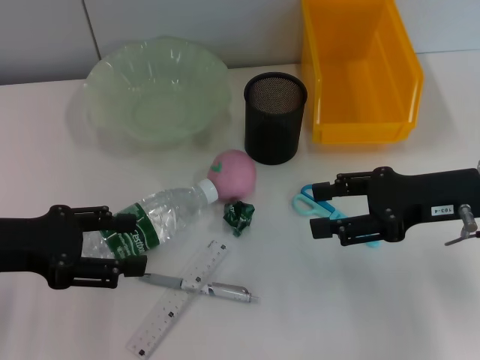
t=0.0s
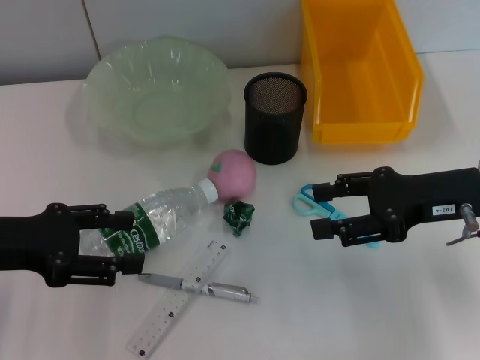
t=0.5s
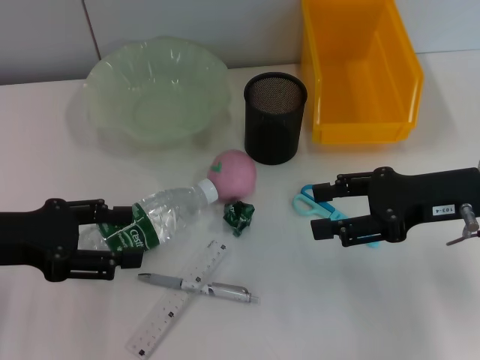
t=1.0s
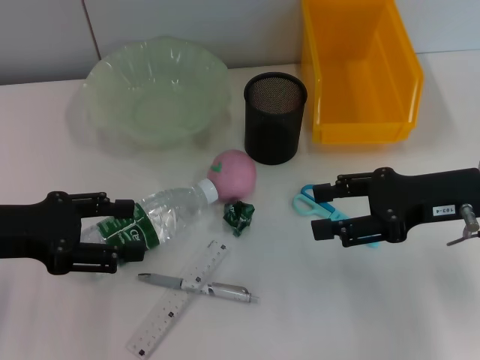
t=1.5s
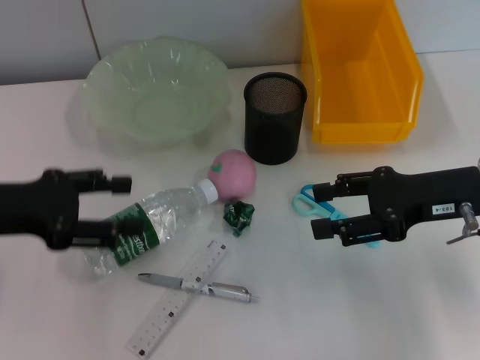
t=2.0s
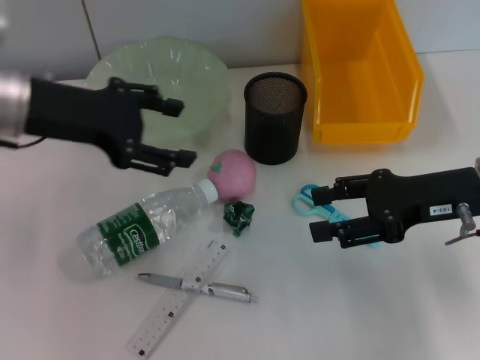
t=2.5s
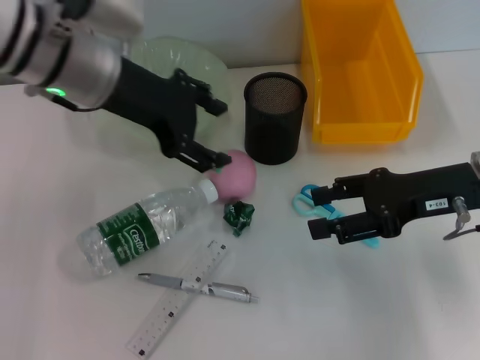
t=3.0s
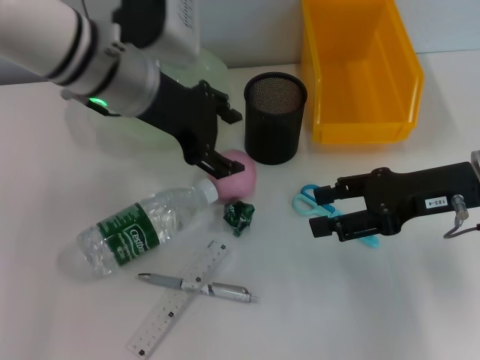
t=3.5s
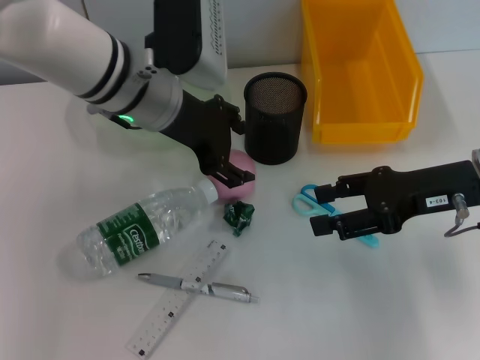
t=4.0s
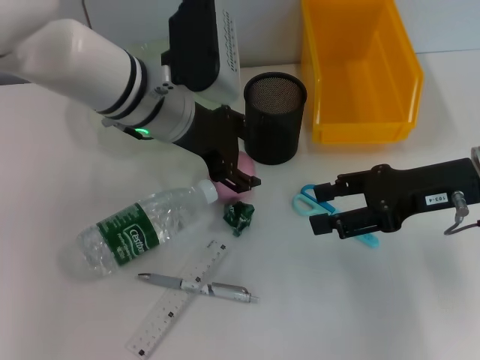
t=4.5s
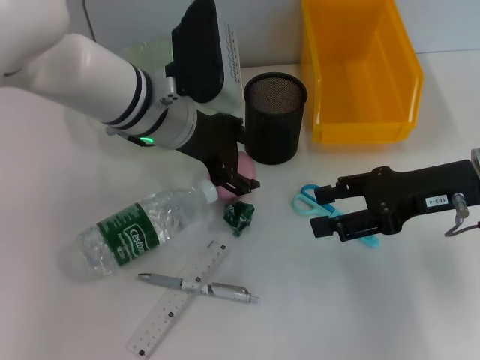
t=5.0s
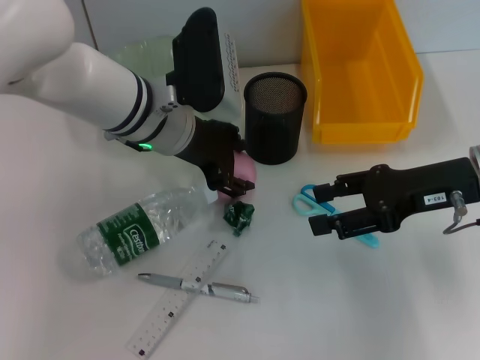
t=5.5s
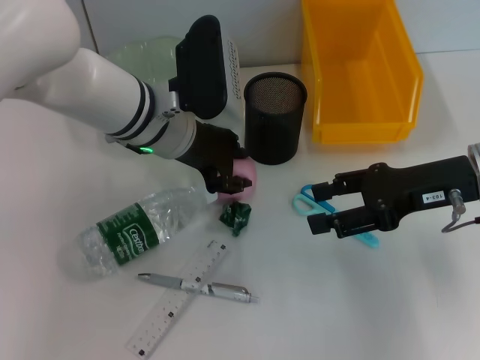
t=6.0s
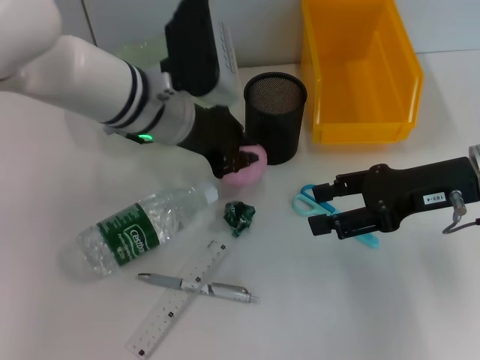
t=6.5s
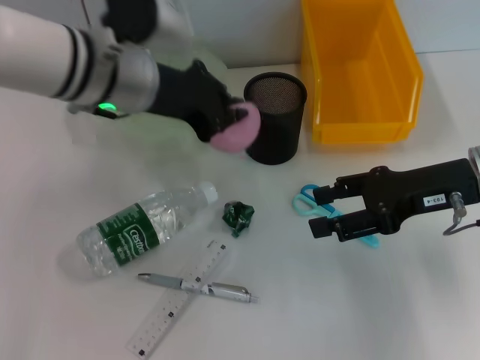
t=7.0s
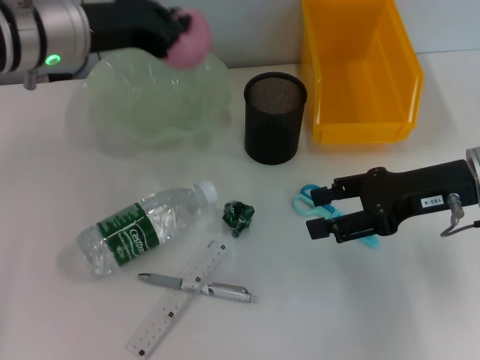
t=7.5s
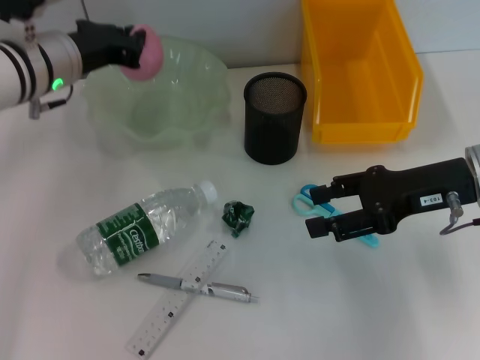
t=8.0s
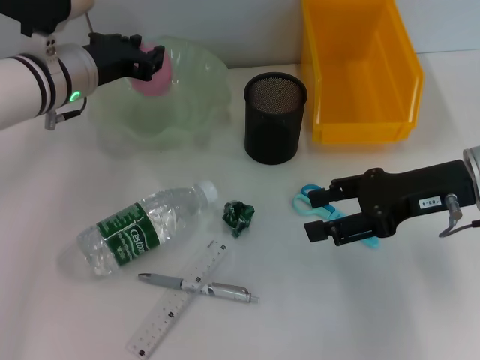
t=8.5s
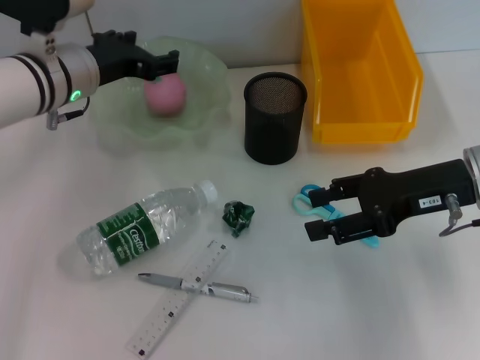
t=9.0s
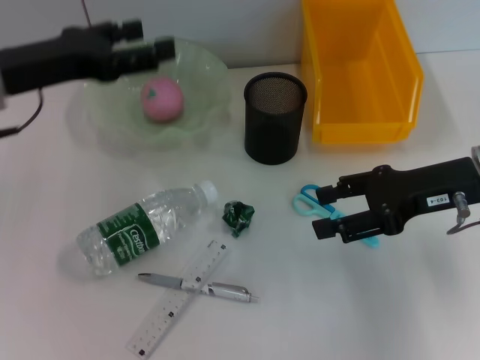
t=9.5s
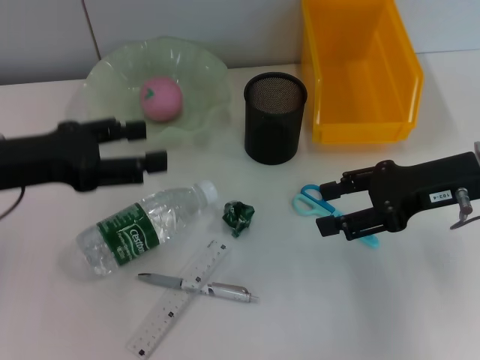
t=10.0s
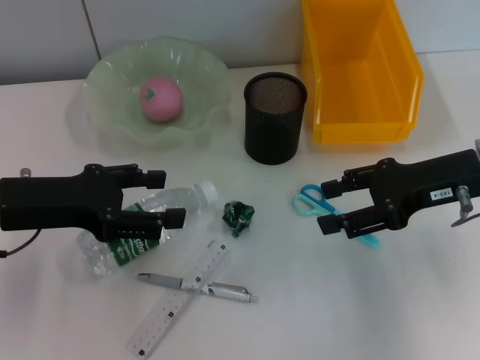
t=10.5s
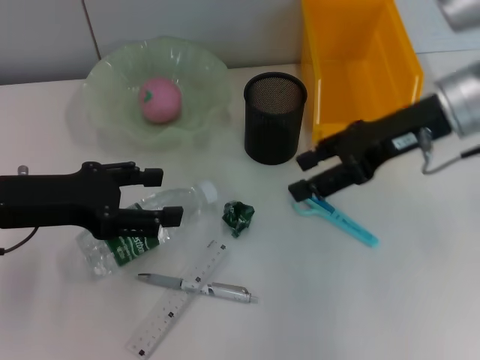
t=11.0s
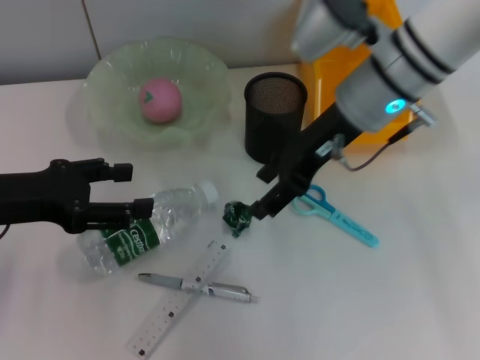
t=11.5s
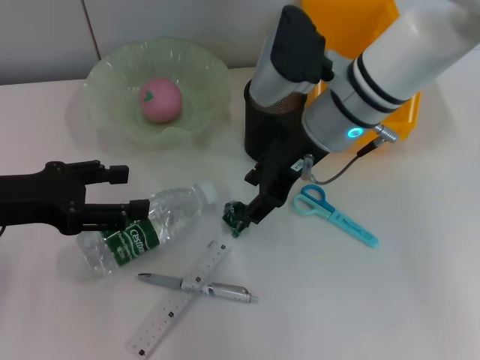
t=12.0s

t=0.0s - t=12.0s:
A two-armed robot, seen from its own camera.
Step, t=0.0s - t=6.0s: Grab the peach with the left hand.
Step, t=6.5s - t=9.5s: Place the peach into the fruit bowl with the left hand.
t=0.0s - t=2.0s: The grippers move only a little.
t=2.0s - t=4.0s: The left gripper moves to the right and forward, approximately 20 cm.
t=4.0s - t=6.0s: There are only small adjustments of the grippers.
t=6.0s - t=8.0s: The left gripper is displaced to the left by approximately 10 cm, and closes.
t=8.0s - t=10.0s: The left gripper heads backward and to the left, covering approximately 15 cm, and opens.
t=10.0s - t=12.0s: The right gripper travels to the left and forward by some 15 cm.

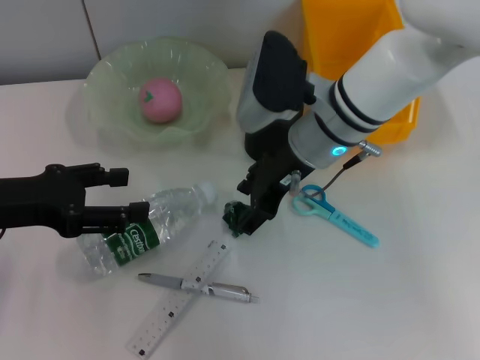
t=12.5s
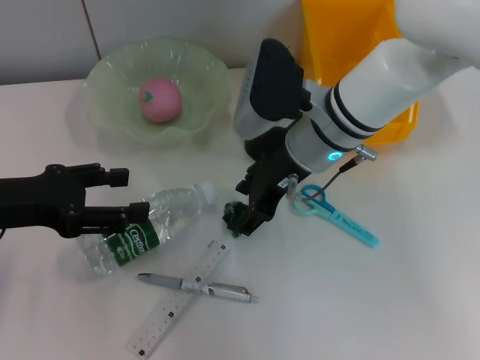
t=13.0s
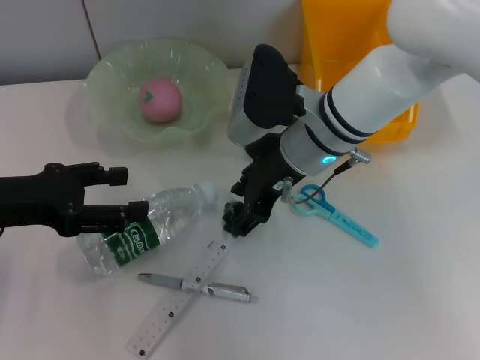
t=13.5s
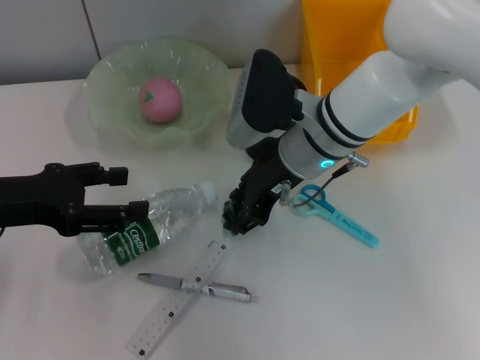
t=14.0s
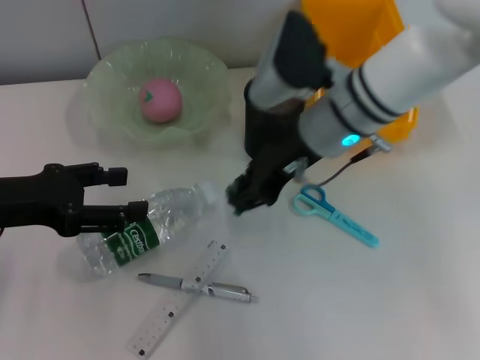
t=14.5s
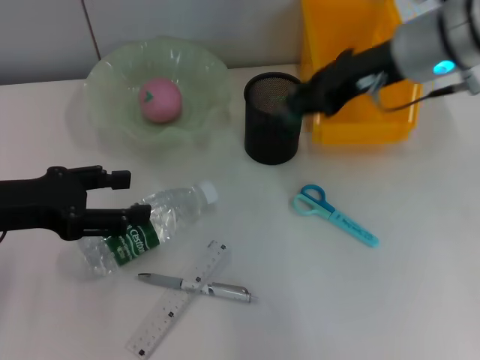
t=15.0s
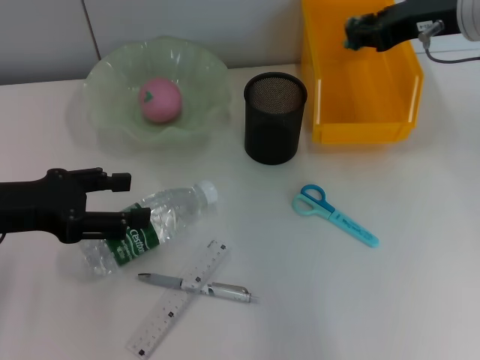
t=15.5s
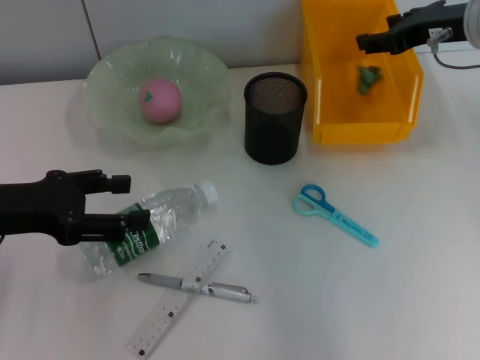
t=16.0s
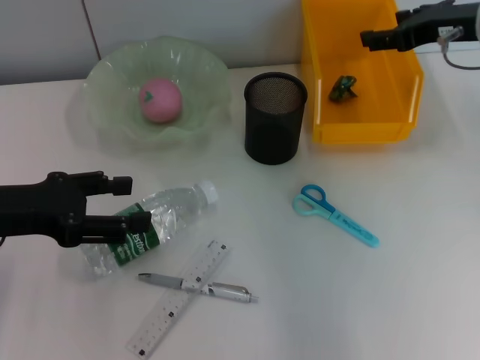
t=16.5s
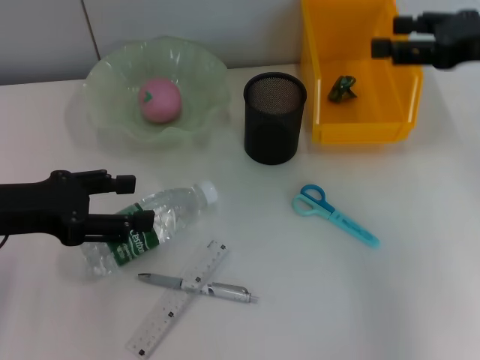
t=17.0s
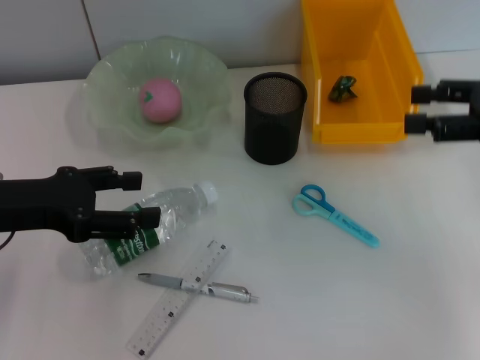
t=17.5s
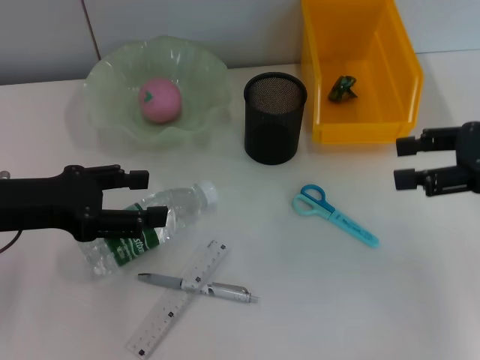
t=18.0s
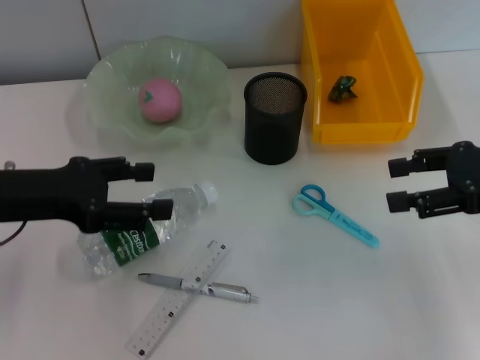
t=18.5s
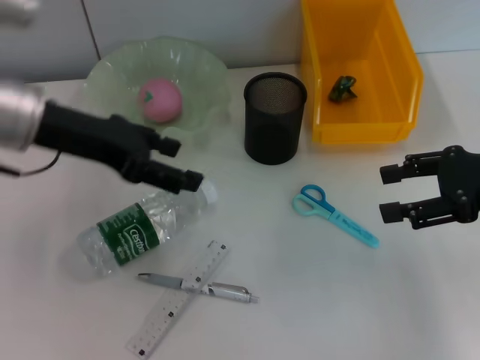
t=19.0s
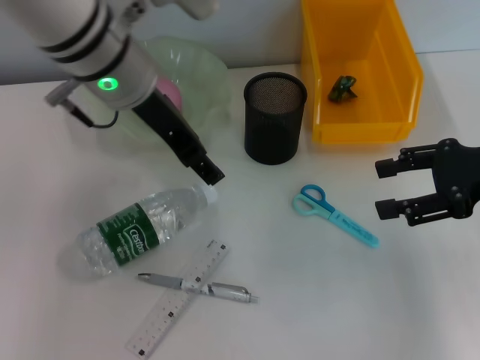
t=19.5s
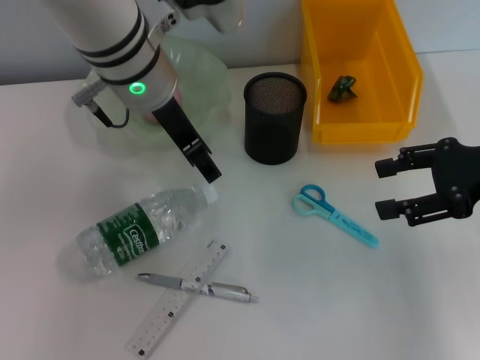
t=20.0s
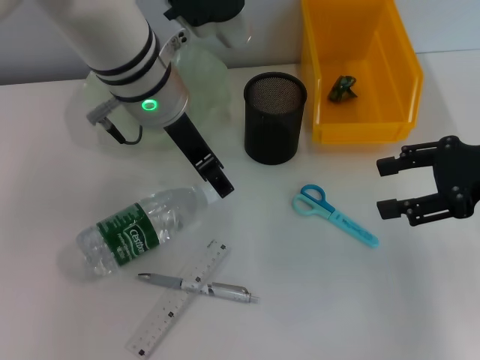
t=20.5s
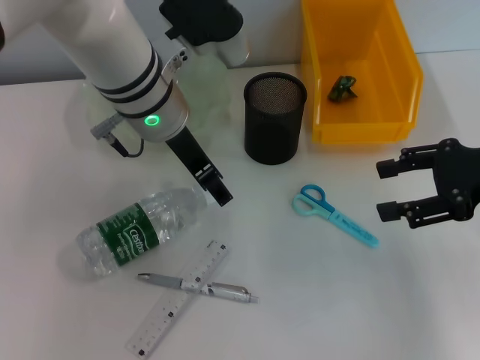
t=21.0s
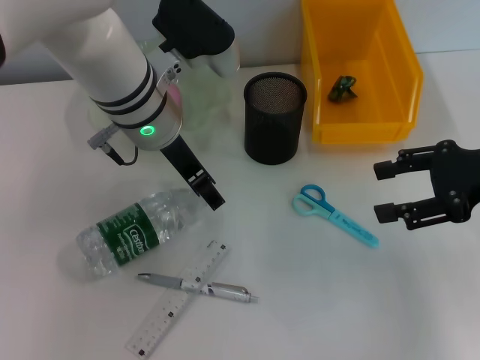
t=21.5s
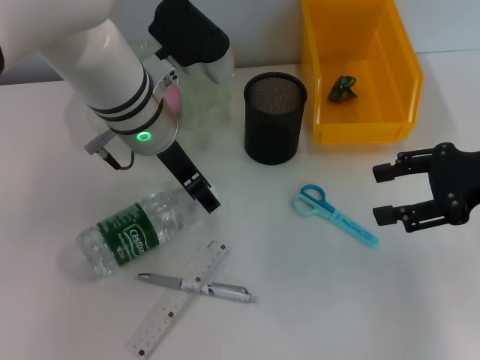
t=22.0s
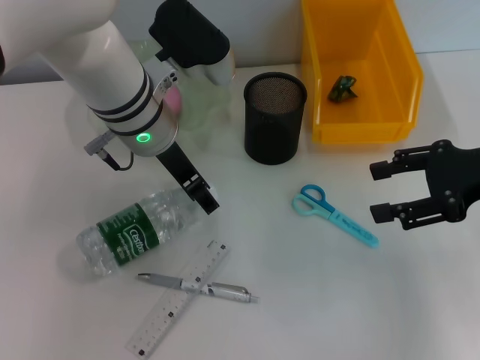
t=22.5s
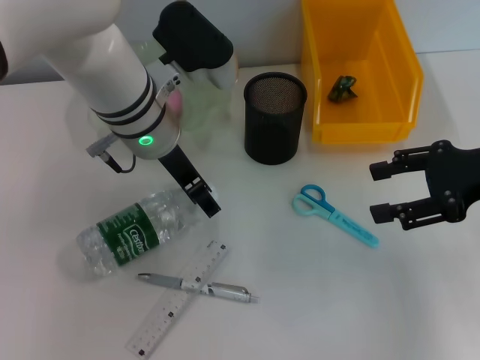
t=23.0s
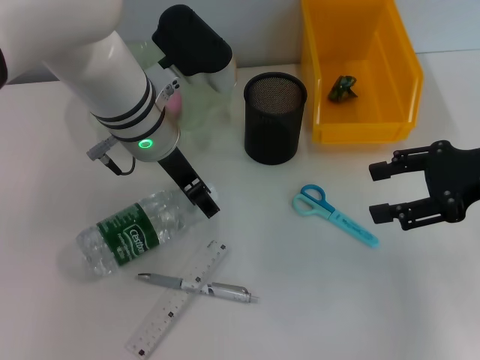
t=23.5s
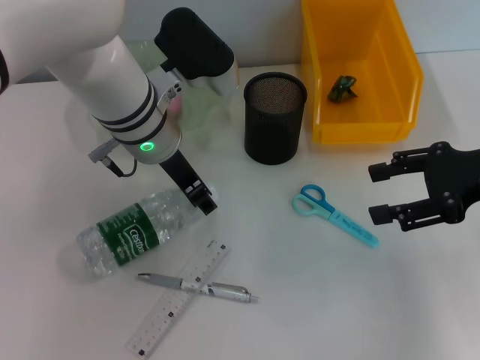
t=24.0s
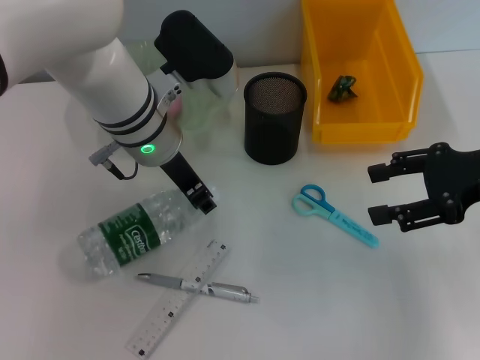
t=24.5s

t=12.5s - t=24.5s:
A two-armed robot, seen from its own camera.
Step, t=14.5s - t=16.0s: Place the plastic into the trash can with the right hand.
Step, t=17.0s - t=24.0s: Grab the water bottle with the left hand.
t=12.5s - t=14.5s: The grippers make only small movements.
t=14.5s - t=16.5s: The right gripper goes about 15 cm to the right, and opens up.
t=16.5s - t=18.5s: The right gripper shifts roughly 10 cm backward and to the right.
t=18.5s - t=20.5s: The left gripper heads to the right and forward, covering roughly 20 cm.
t=20.5s - t=22.5s: There are only small adjustments of the grippers.
t=22.5s - t=24.5s: The left gripper closes up.

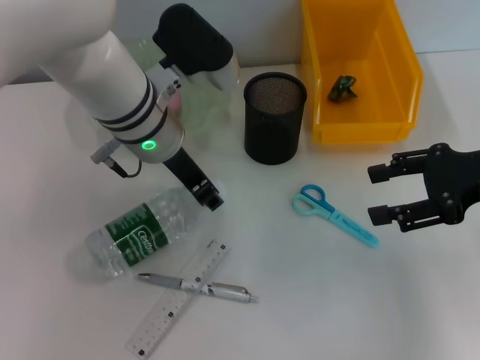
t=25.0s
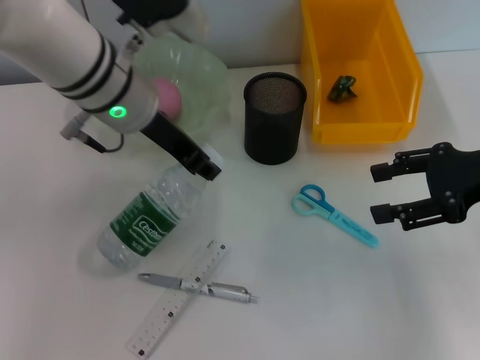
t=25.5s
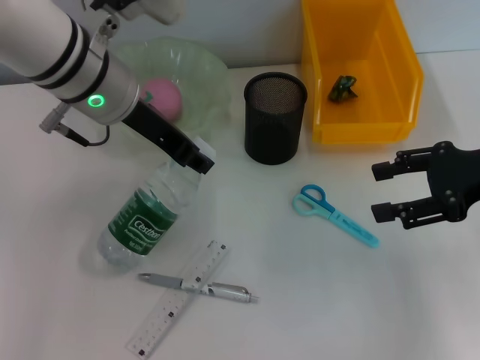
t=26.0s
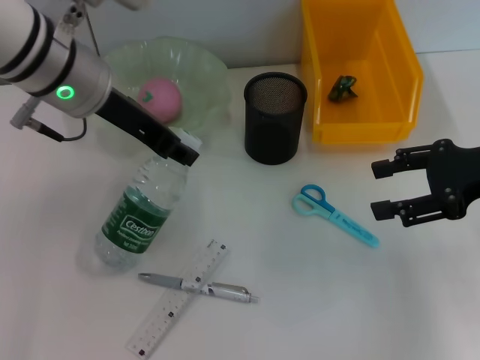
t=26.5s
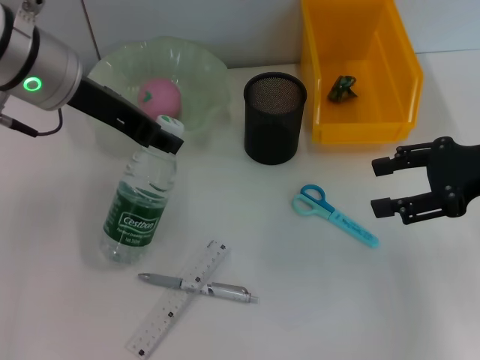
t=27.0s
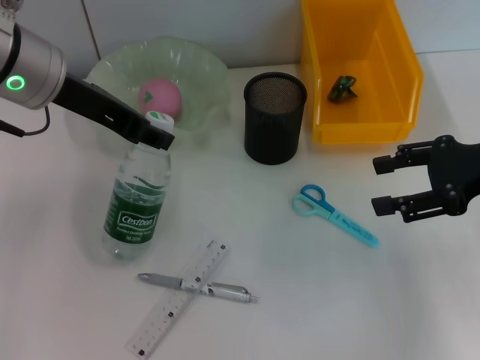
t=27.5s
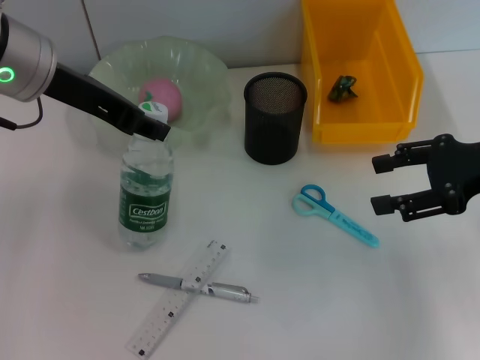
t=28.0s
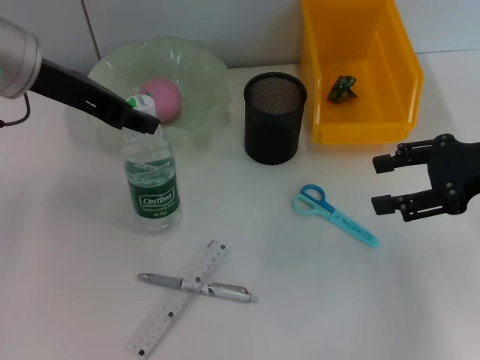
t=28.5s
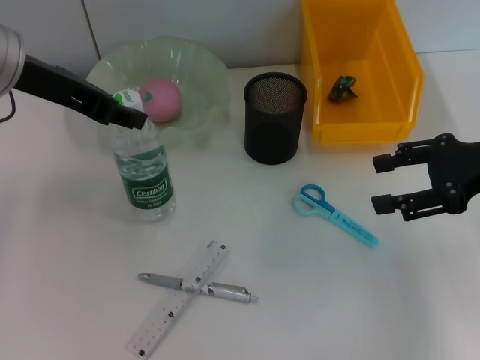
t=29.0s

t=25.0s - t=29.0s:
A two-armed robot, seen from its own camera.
t=25.0s - t=27.0s: The left gripper moves to the left and upward, approximately 10 cm.
t=27.0s - t=29.0s: The grippers stay close to where they were, moving slightly.
